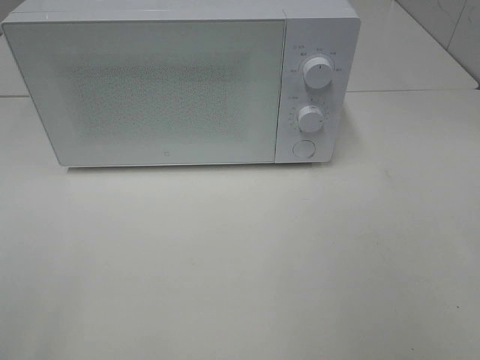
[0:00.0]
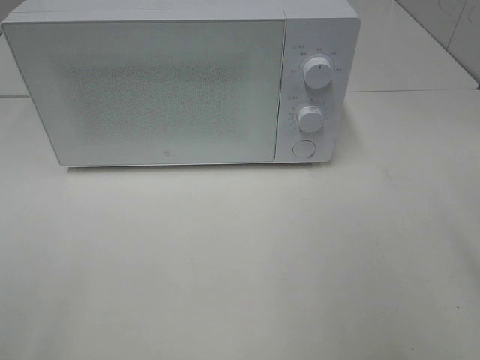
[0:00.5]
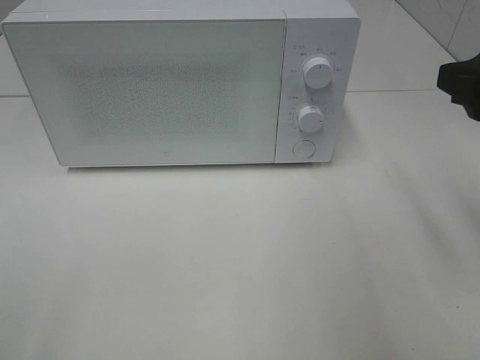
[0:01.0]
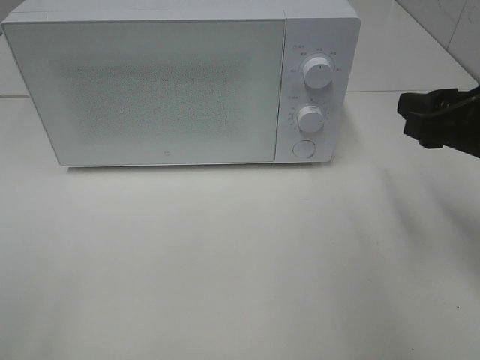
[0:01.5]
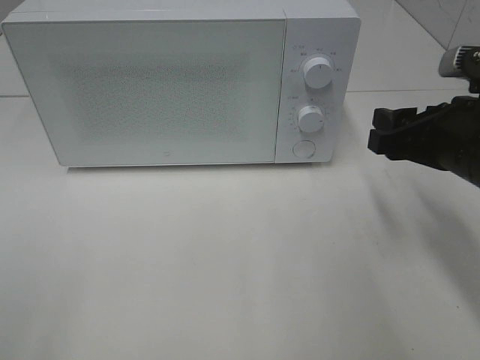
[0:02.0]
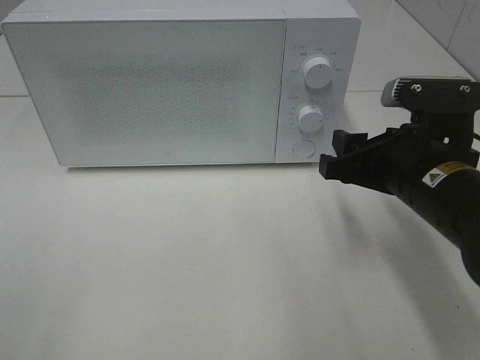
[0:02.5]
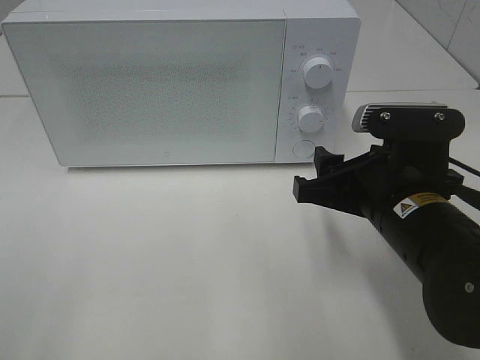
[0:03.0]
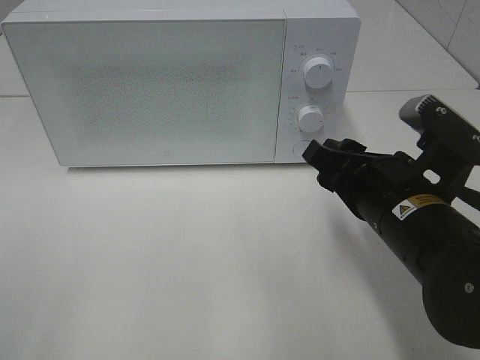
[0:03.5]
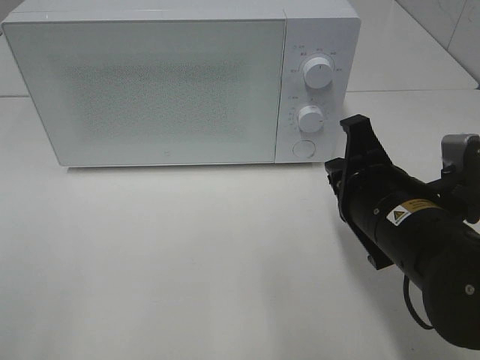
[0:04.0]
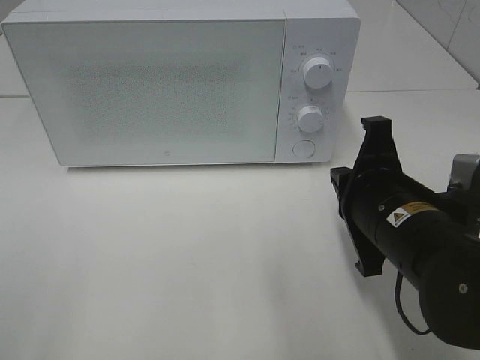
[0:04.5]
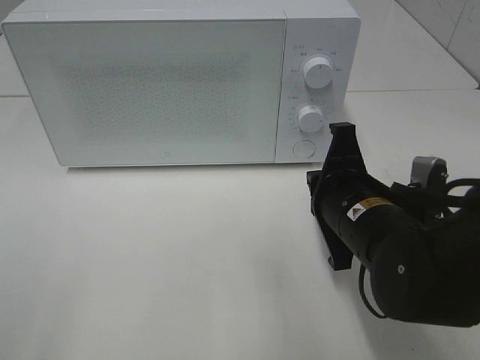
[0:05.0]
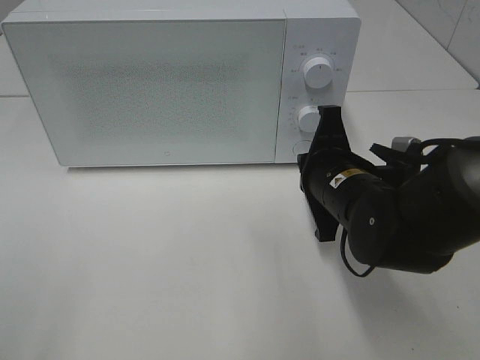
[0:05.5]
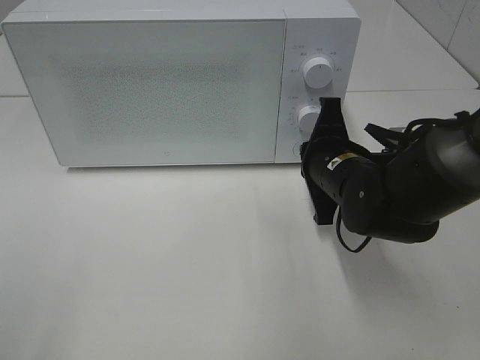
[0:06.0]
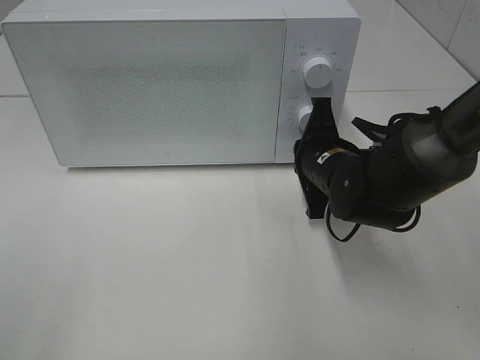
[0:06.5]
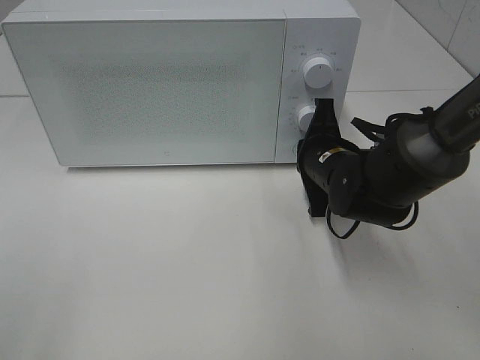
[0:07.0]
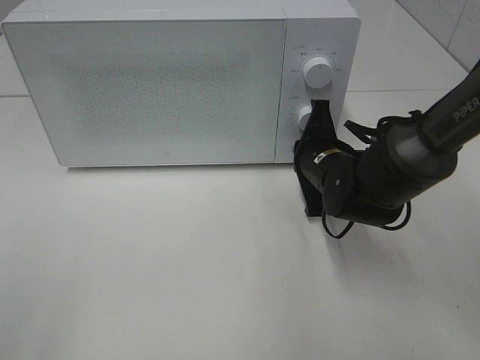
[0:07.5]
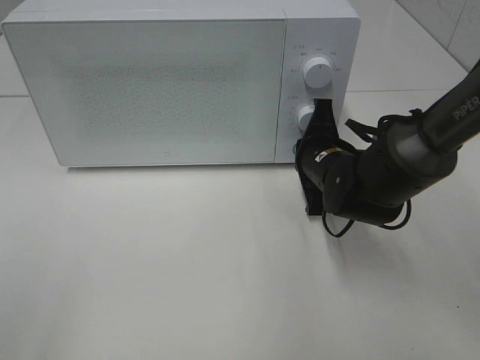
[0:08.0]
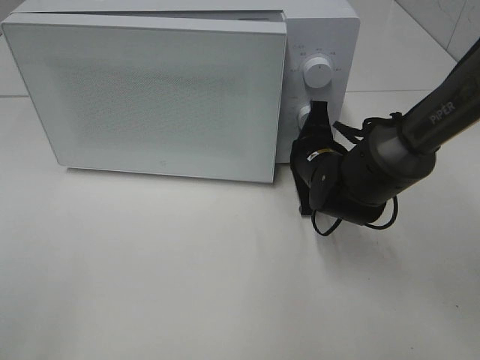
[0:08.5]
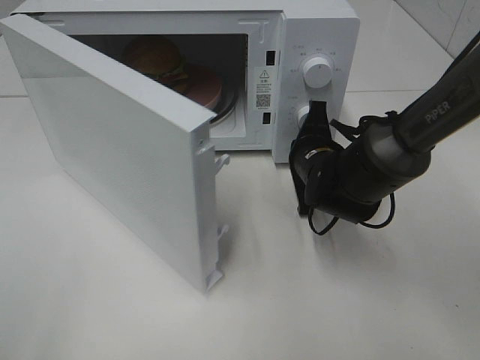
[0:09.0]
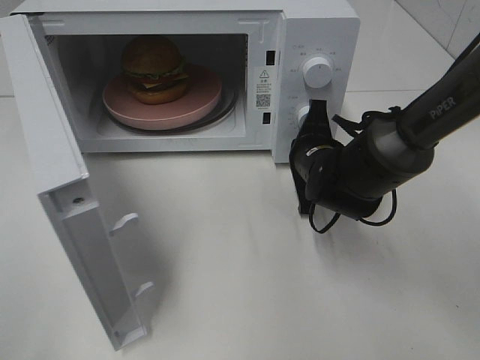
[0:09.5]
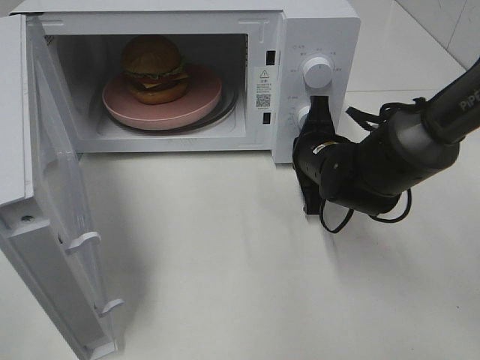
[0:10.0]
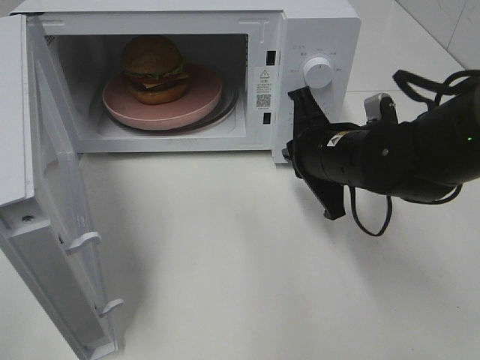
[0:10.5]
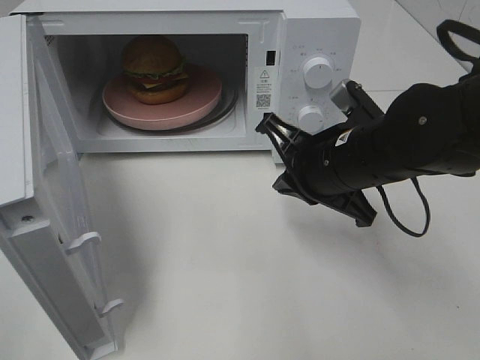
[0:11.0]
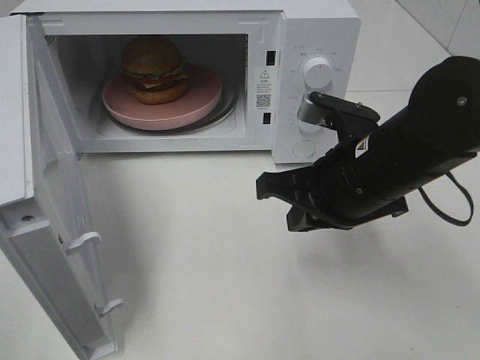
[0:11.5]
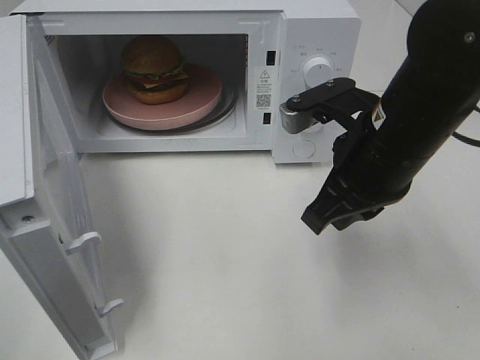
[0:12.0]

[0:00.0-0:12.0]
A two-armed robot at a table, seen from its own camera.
Task of the whole recording: Heat the burger.
Step, 0:00.0 to 0:10.0: Right hand: press the switch.
0:00.0 to 0:02.0: The right gripper moves forward and downward, approximately 20 cm.
0:02.0 to 0:04.0: The right gripper heads to the left, covering some 10 cm, and closes its fingers.
0:04.0 to 0:06.0: The right gripper heads forward, covering about 10 cm.
0:06.0 to 0:08.0: The grippers stay close to where they were, moving slightly.
0:10.0 to 0:12.0: The right gripper goes approximately 15 cm upward and backward.

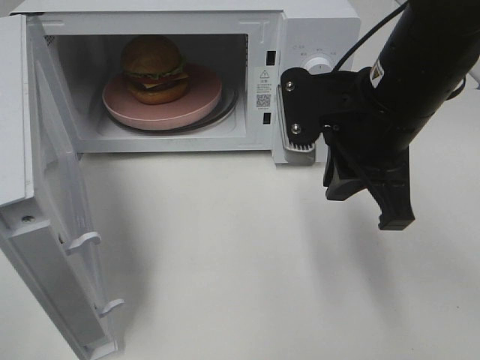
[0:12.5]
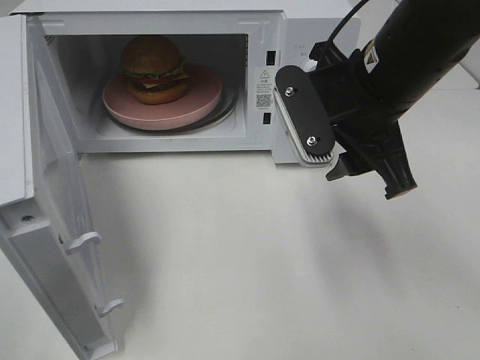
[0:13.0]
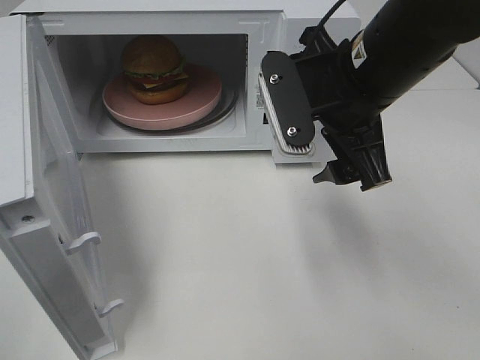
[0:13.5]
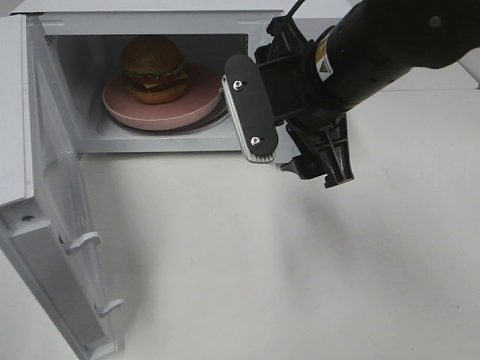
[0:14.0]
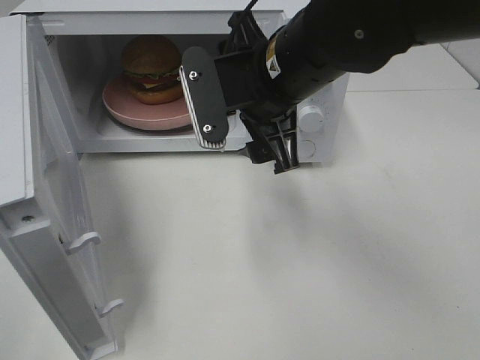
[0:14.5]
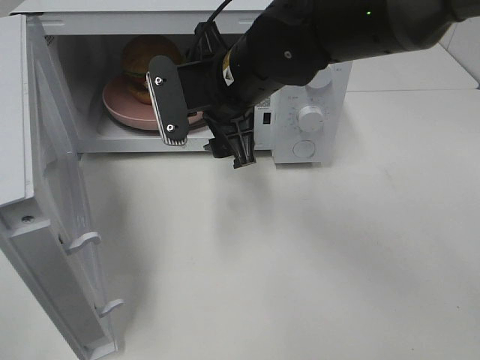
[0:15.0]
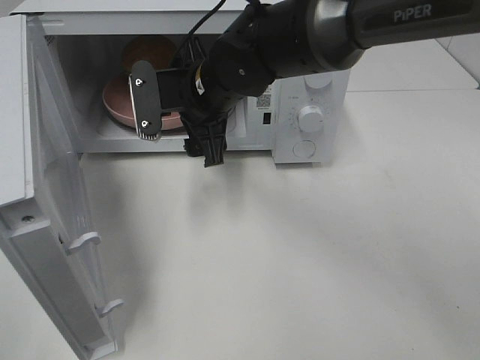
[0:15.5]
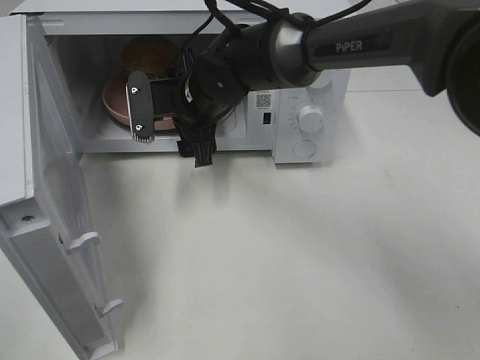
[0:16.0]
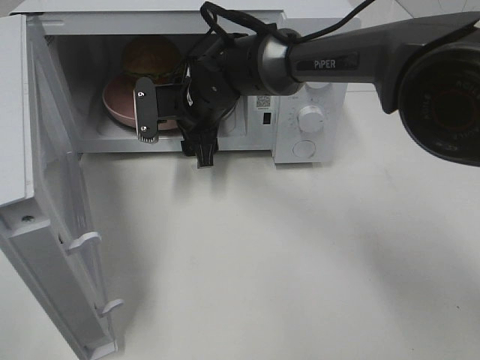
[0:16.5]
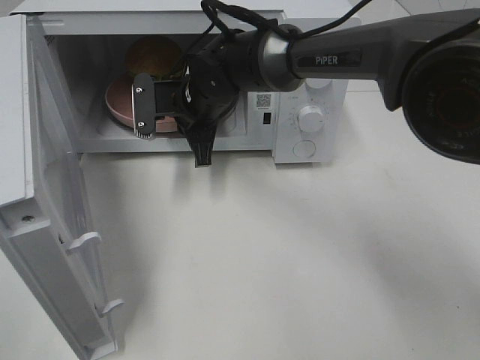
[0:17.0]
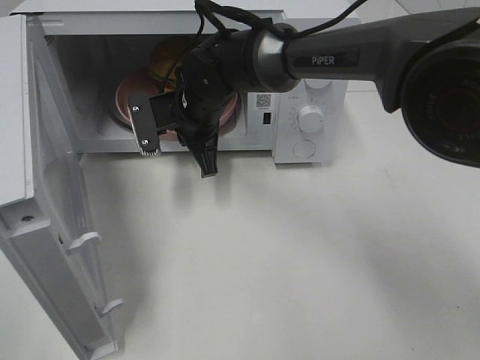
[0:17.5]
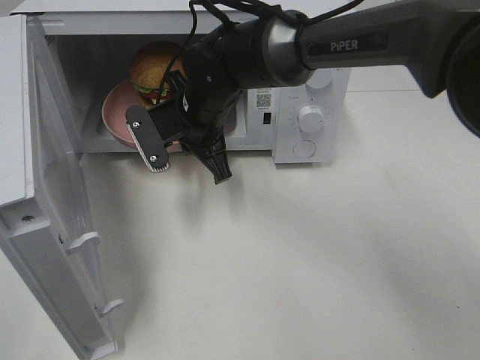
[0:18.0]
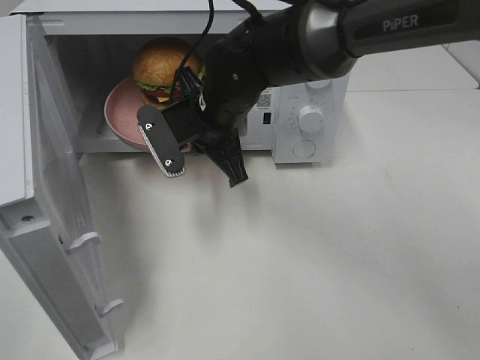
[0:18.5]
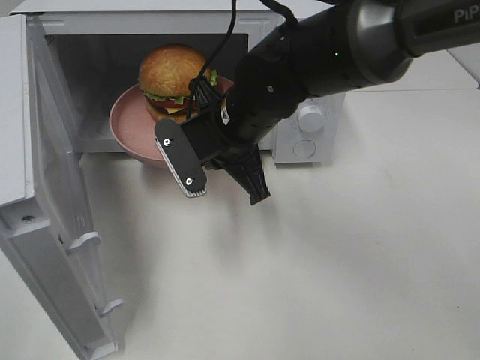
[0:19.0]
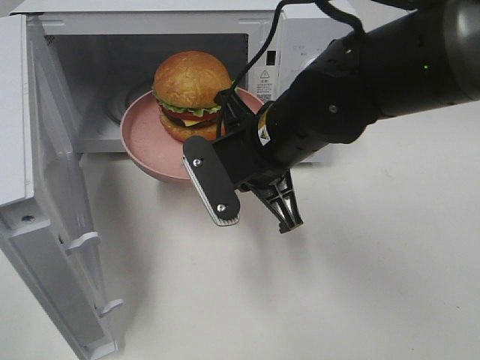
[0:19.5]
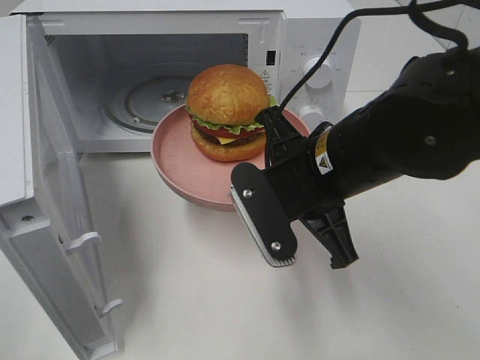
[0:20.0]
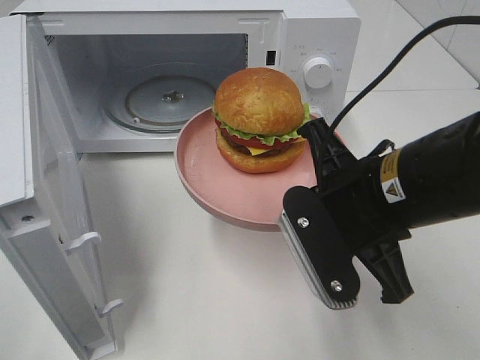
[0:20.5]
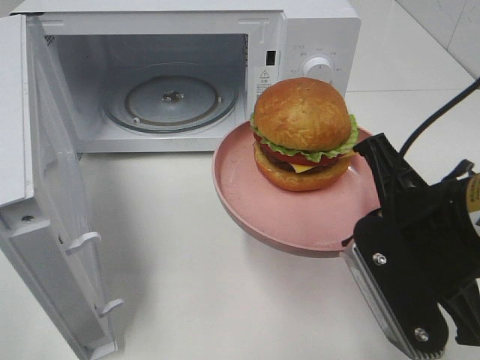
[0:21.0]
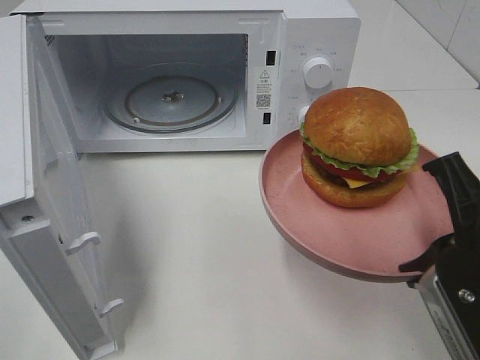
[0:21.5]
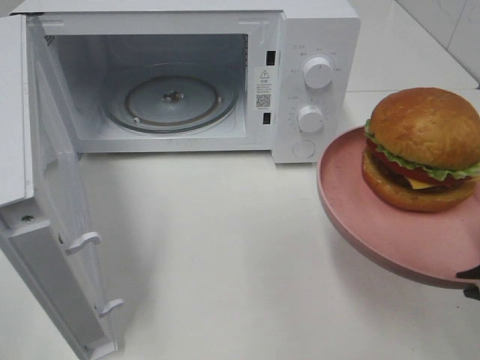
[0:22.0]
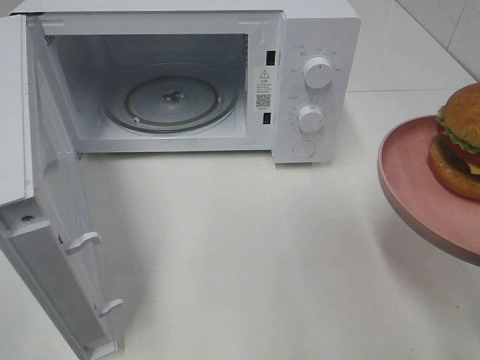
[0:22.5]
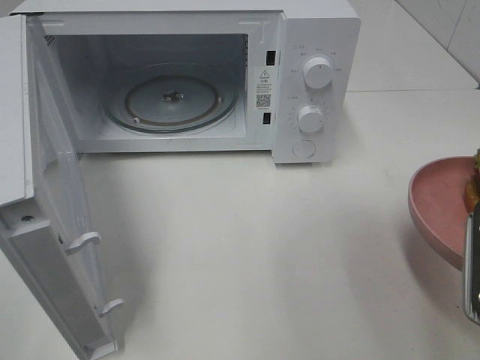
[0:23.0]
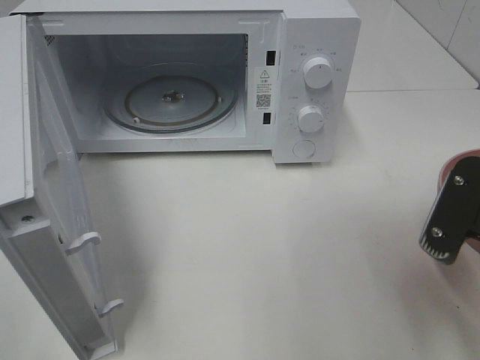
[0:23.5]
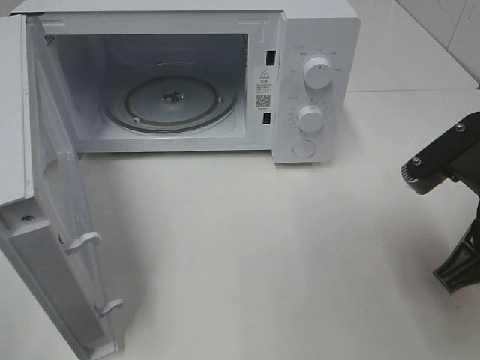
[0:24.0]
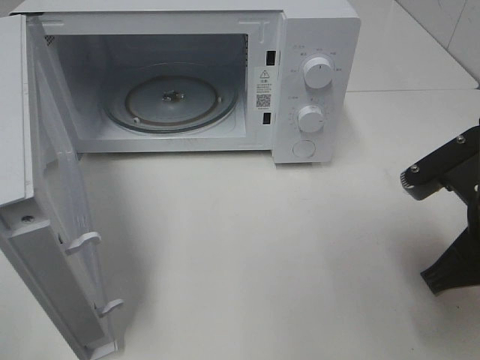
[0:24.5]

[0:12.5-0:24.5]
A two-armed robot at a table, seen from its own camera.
Task of the whole recording: Heat the burger.
Step, 0:12.5 to 0:17.0: Right hand: grab the plate with the hamburger.
0:12.5 to 0:14.5: The right gripper shifts about 10 cm to the left, and opens its fingers.
0:14.5 to 0:16.5: The right gripper heads forward, downward and to the left, covering about 20 cm.
0:16.5 to 0:18.5: The right gripper travels backward by roughly 5 cm, and closes up.
0:18.5 to 0:20.5: The right gripper travels backward and to the right by approximately 20 cm.
0:20.5 to 0:22.5: The right gripper moves to the right and backward, approximately 15 cm.
0:22.5 to 0:24.5: The right gripper is displaced forward by approximately 5 cm.

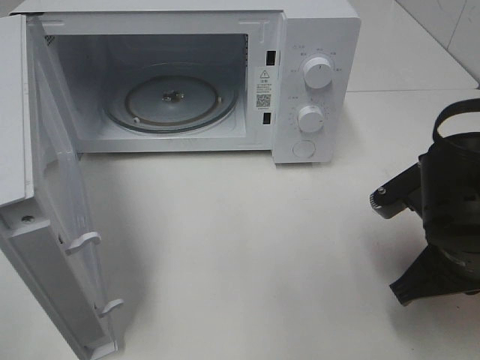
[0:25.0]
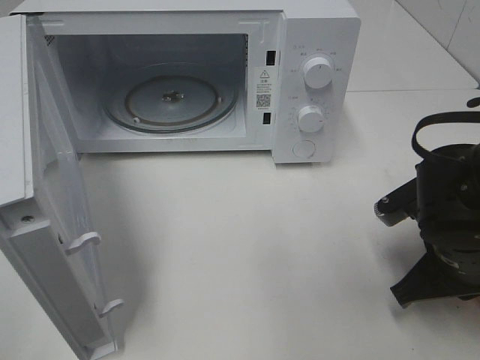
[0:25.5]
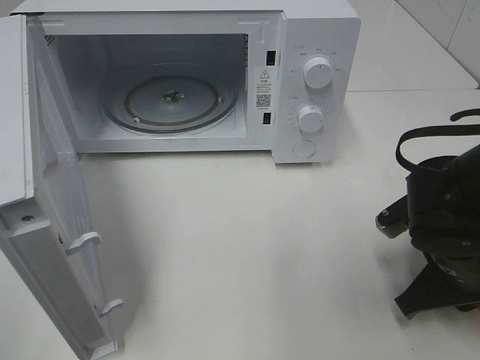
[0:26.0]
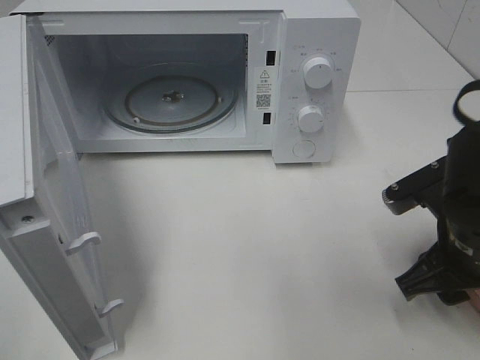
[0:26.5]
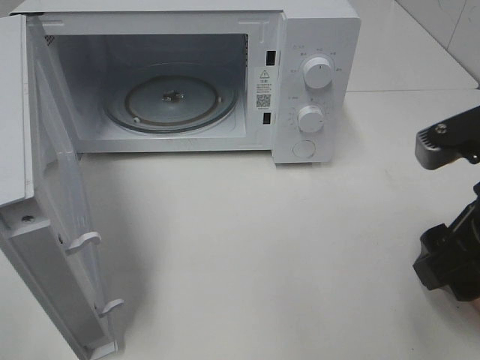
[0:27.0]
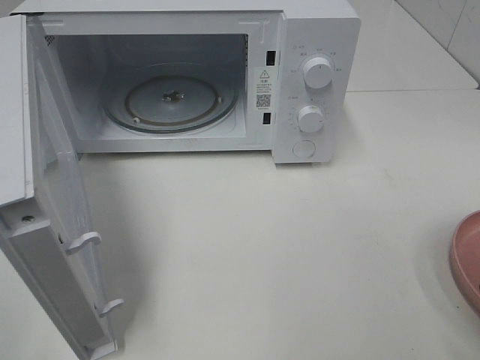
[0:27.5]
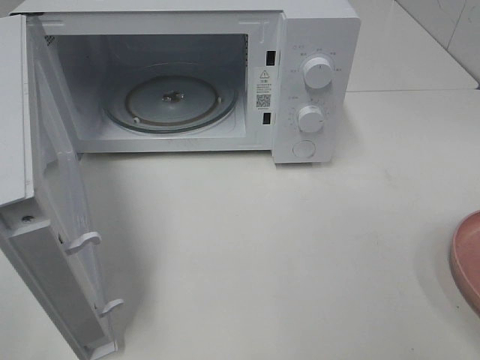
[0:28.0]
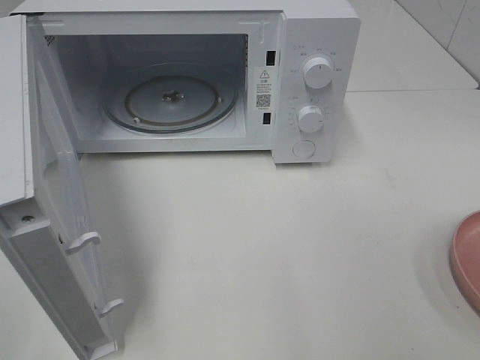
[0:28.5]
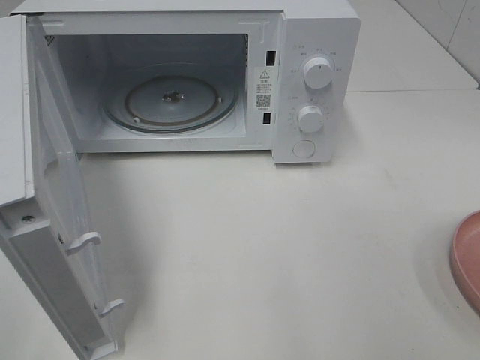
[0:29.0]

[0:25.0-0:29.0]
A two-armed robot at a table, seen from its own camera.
Task of the whole recording: Heat the burger.
0:25.0 to 0:27.0: The right gripper moves upward, approximately 10 cm, and opens.
0:27.0 to 0:29.0: The right gripper travels backward and to the right by about 20 cm.
